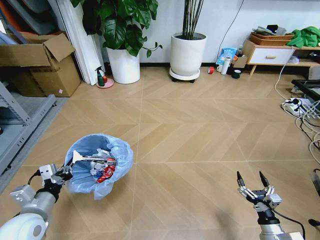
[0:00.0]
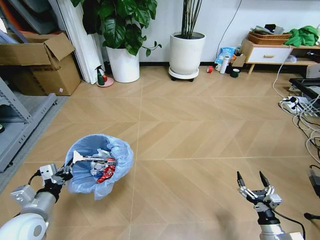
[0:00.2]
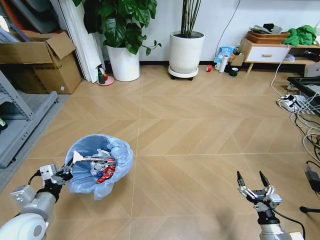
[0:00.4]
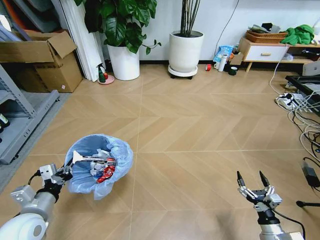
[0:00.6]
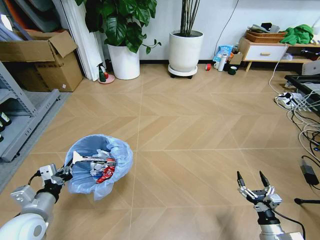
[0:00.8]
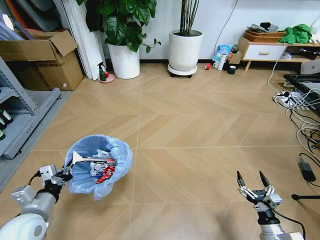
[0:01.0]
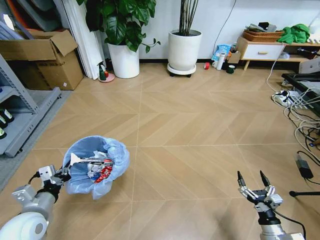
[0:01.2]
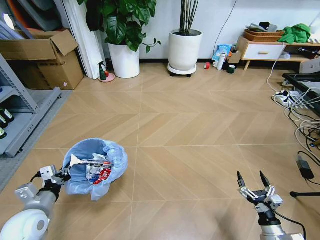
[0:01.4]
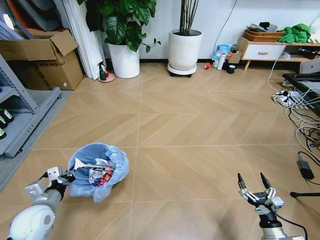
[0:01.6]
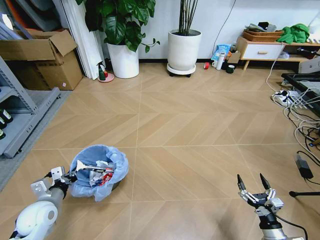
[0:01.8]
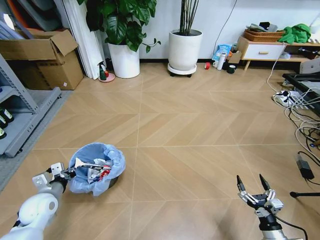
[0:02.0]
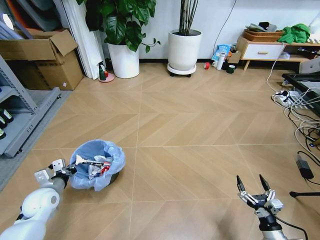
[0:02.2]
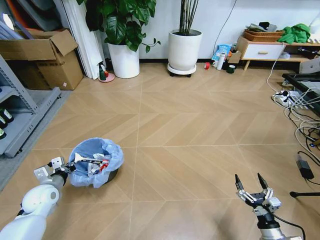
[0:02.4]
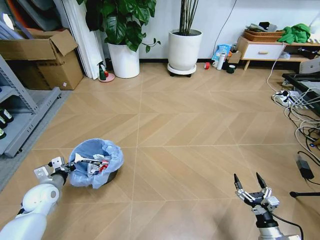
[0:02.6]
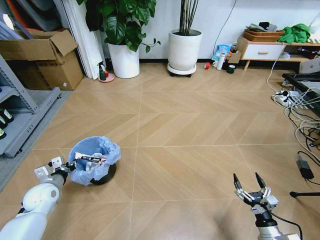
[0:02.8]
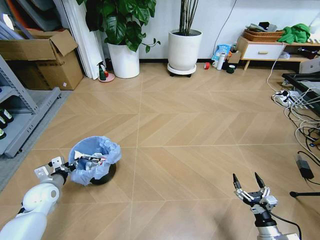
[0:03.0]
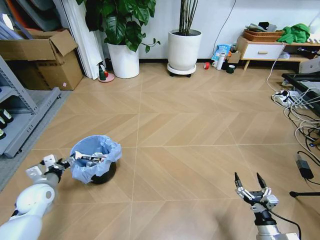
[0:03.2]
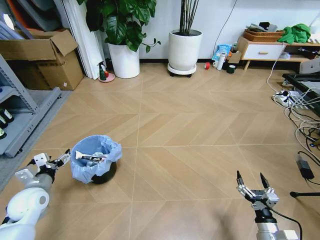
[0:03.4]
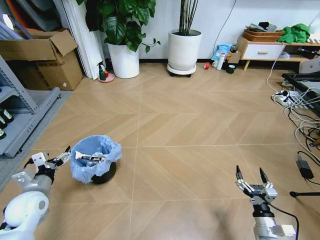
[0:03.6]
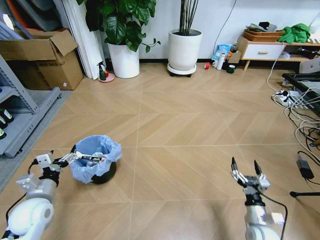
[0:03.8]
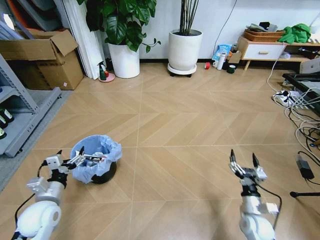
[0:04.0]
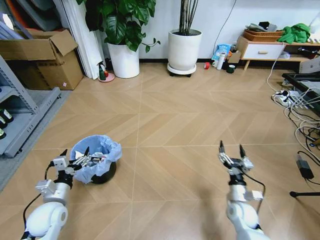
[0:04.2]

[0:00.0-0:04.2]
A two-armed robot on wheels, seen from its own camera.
Task of the whole recording: Pick up the trash bin and place the garbage on the floor into it.
0:01.4 to 0:02.8: The left gripper heads forward and downward, covering some 10 cm.
0:02.8 to 0:04.2: The left gripper shifts roughly 10 cm backward and to the right, and opens its fingers. Meanwhile the right gripper is displaced forward and to the left by approximately 15 cm.
